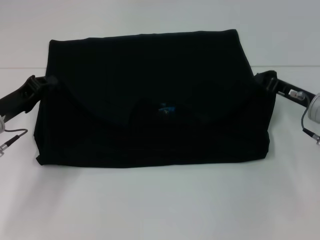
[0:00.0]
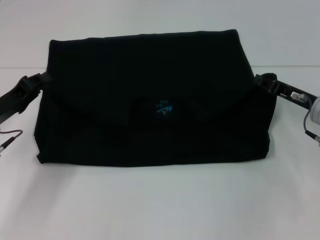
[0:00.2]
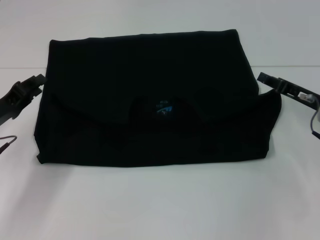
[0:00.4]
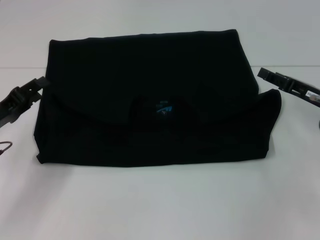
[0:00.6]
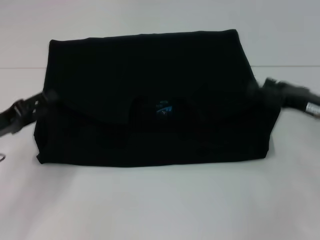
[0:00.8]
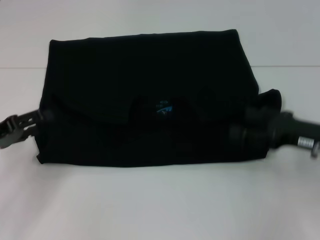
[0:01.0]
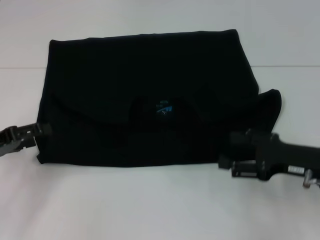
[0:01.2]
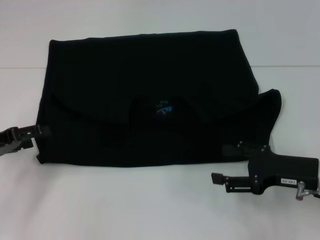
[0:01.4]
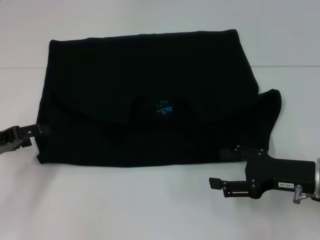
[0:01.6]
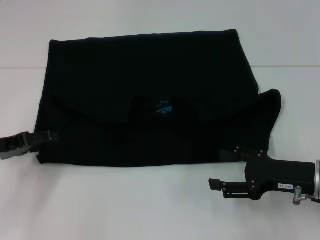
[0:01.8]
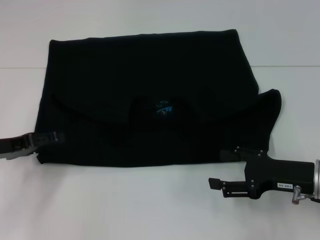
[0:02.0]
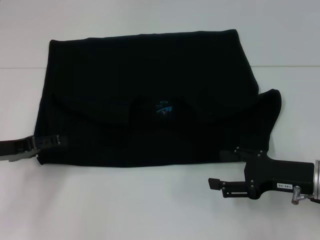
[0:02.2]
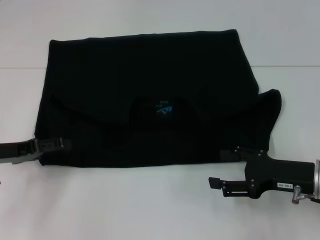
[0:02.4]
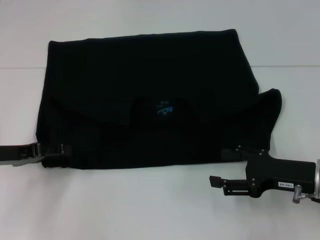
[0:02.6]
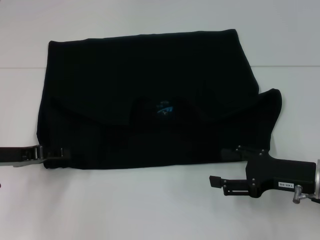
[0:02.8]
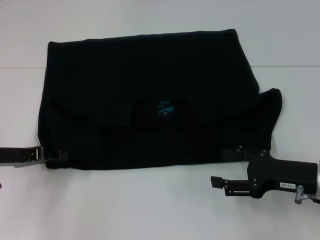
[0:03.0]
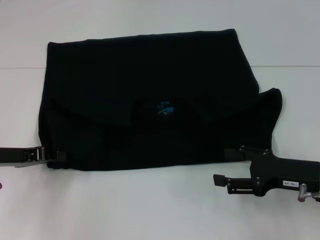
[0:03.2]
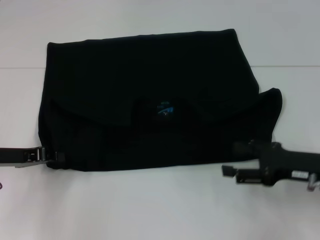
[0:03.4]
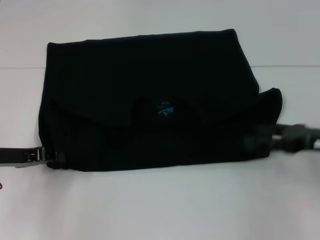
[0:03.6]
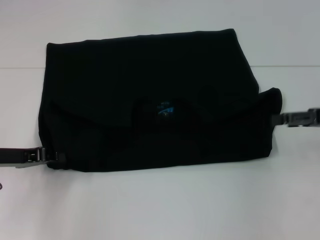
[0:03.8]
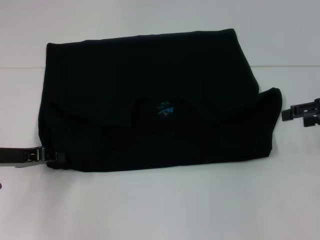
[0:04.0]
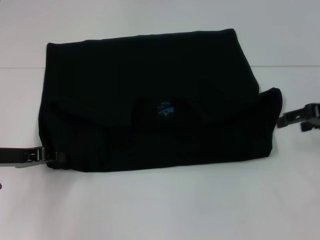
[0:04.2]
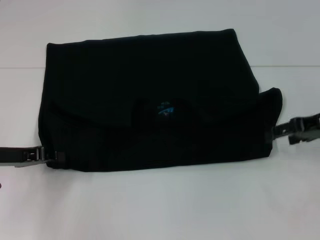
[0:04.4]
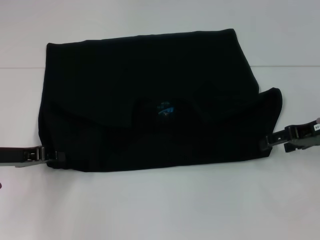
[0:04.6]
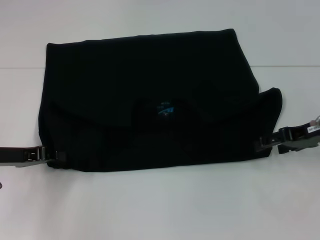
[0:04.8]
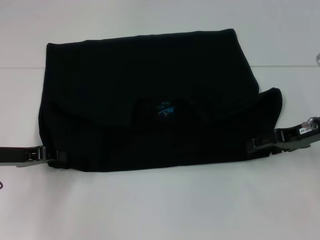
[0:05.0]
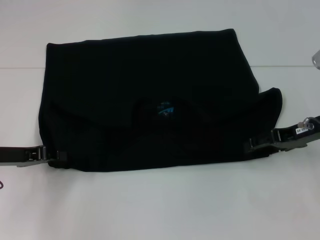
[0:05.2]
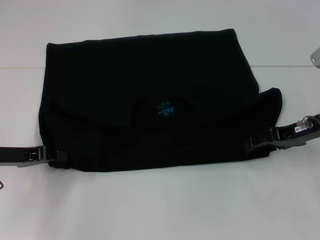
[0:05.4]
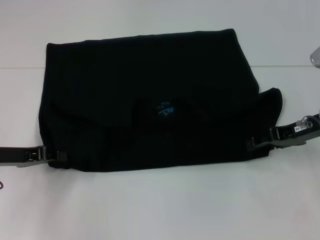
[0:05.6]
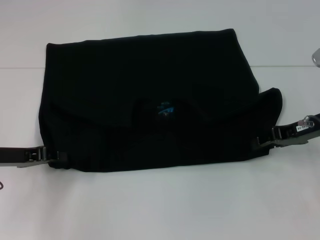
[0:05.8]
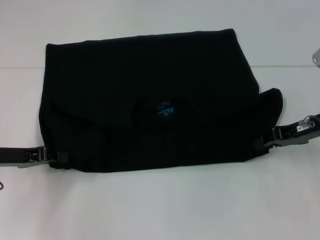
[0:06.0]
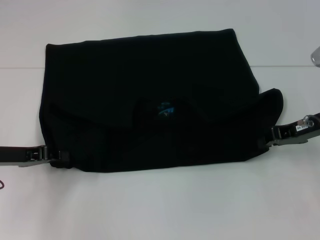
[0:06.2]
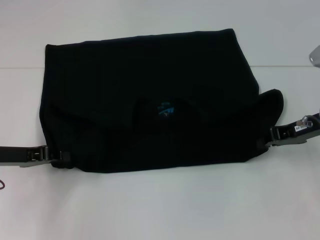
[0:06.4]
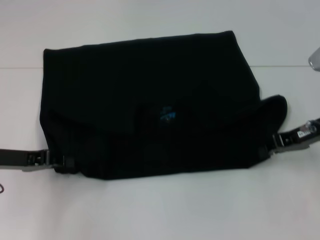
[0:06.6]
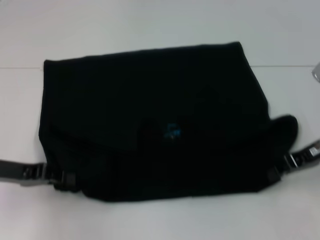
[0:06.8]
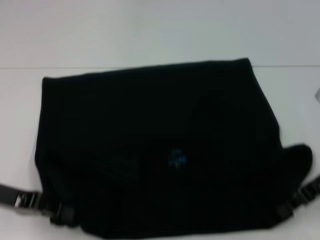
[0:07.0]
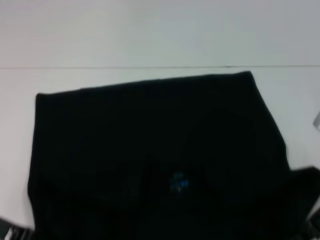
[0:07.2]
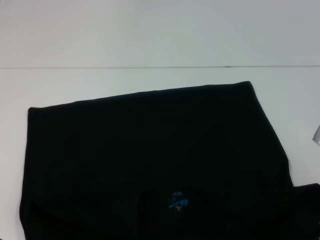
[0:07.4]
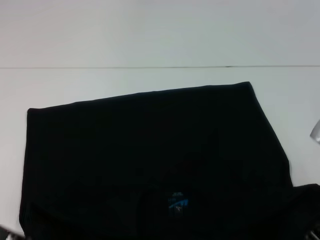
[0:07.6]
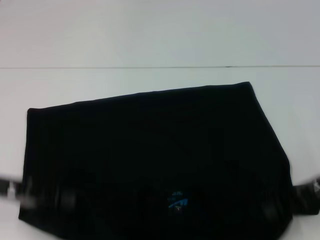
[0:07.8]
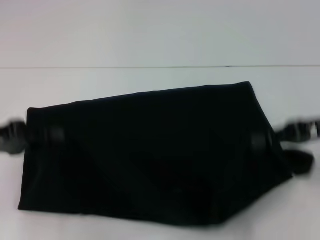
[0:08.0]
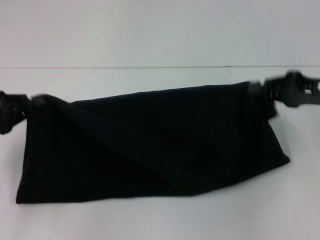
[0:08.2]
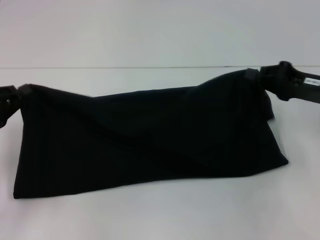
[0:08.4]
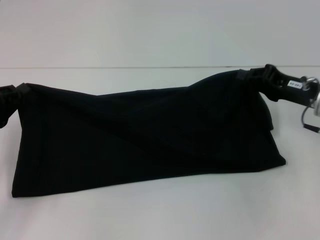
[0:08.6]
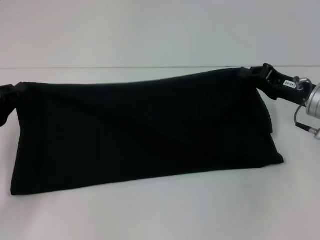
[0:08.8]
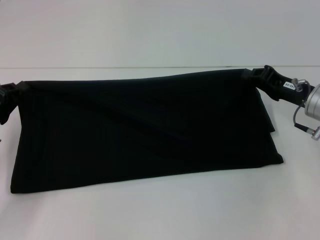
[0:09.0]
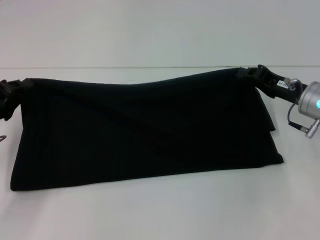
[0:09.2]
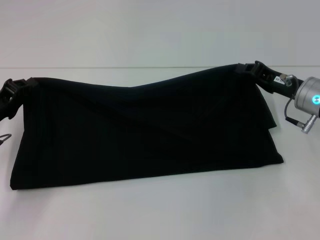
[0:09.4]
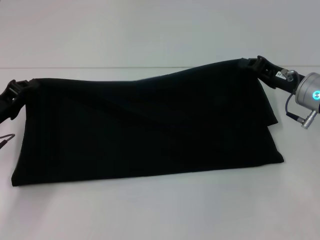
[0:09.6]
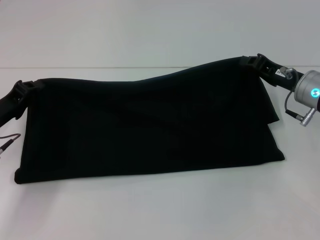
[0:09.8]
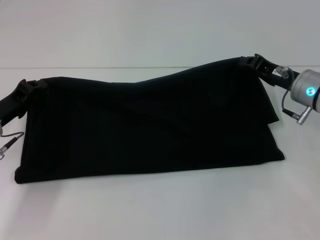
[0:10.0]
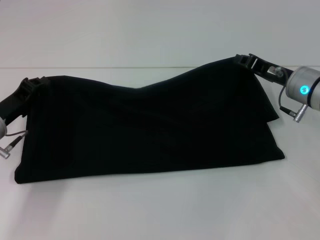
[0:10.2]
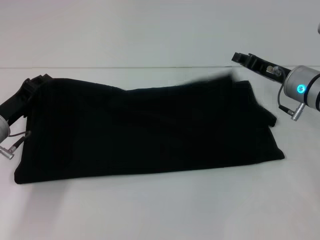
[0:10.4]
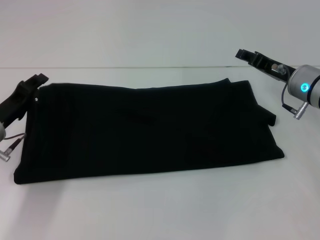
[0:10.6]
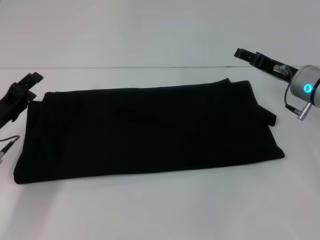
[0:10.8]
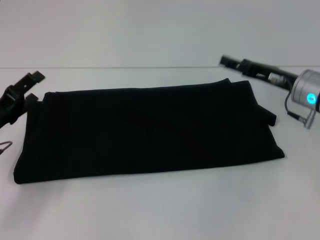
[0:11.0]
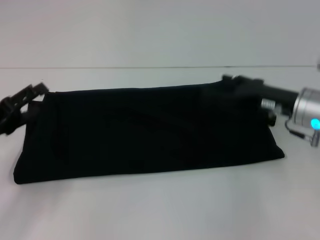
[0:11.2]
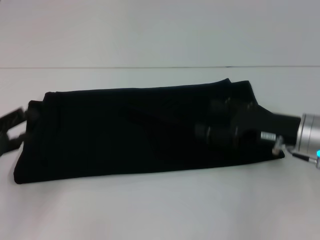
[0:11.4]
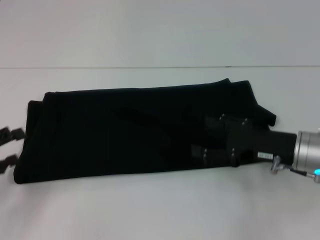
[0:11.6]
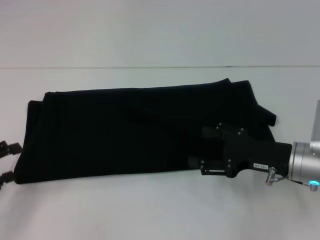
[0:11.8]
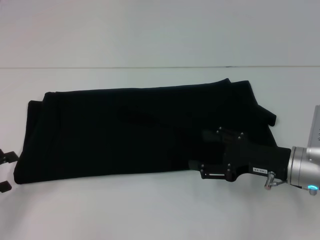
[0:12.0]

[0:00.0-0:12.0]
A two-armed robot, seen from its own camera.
Step, 1.2 to 7.4 s: Pull the clothes with your left hand.
Step, 1.2 to 7.4 s: Pull the clothes with your right hand.
Step, 7.6 to 11.0 s: Fold the clothes with your right hand.
0.0 to 1.6 s: The left gripper travels to the left by about 5 cm, and opens up, while the right gripper heads backward, covering about 10 cm, and opens.
1.6 to 3.0 s: The left gripper closes its fingers.
3.0 to 4.4 s: The right gripper moves forward and upward, some 15 cm; the left gripper closes its fingers.
4.4 to 6.0 s: The right gripper closes.
6.0 to 7.6 s: The grippers both shift backward by roughly 5 cm. The right gripper closes.
7.6 to 9.0 s: Both grippers travel together forward, approximately 5 cm.
9.0 to 10.4 s: The left gripper ends up about 5 cm from where it was.
10.4 to 12.0 s: The left gripper travels backward and to the left by about 15 cm, and opens, while the right gripper travels backward by about 10 cm, and opens.

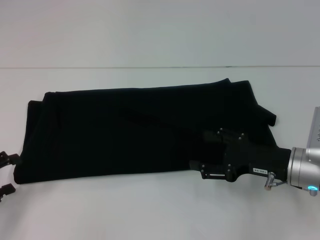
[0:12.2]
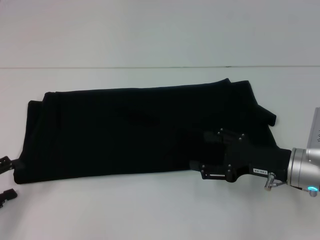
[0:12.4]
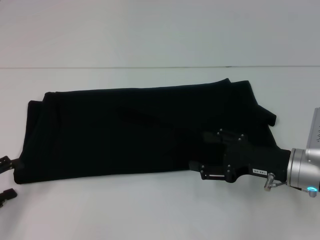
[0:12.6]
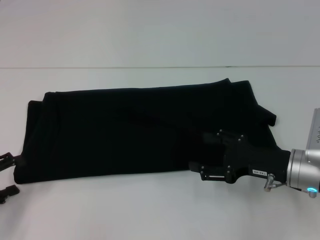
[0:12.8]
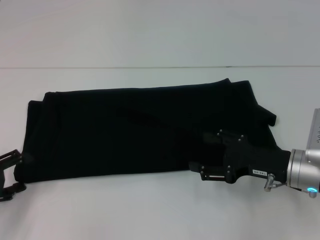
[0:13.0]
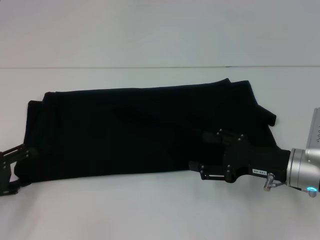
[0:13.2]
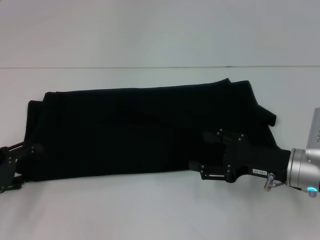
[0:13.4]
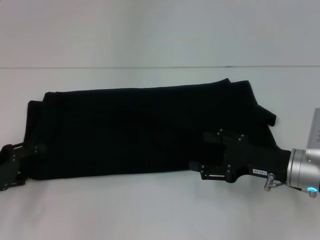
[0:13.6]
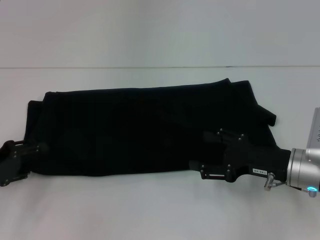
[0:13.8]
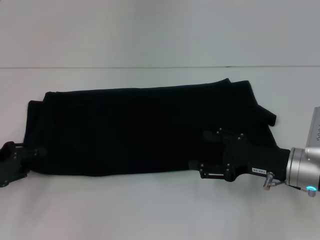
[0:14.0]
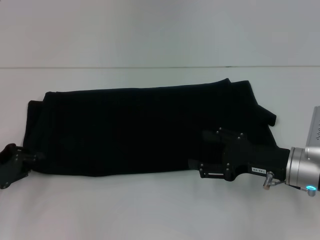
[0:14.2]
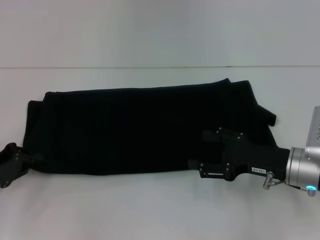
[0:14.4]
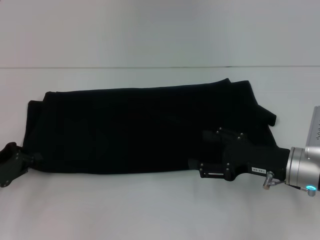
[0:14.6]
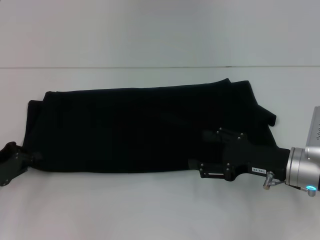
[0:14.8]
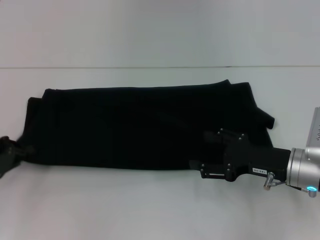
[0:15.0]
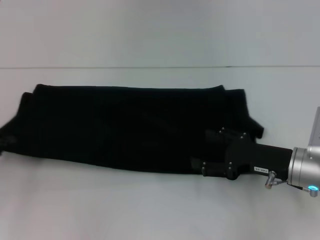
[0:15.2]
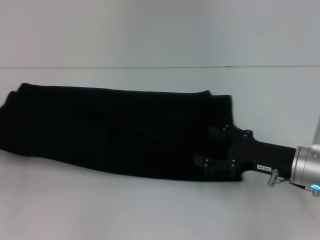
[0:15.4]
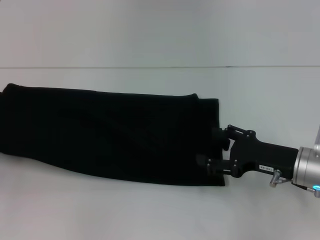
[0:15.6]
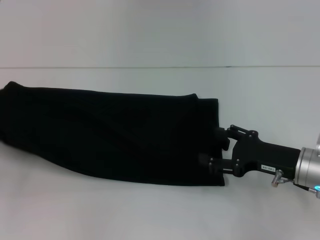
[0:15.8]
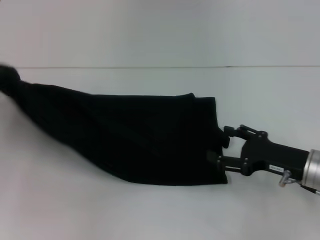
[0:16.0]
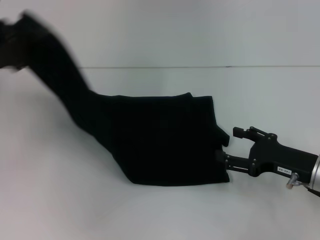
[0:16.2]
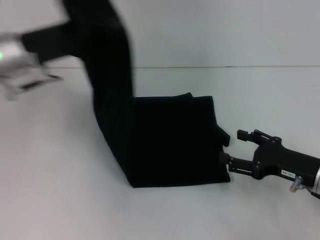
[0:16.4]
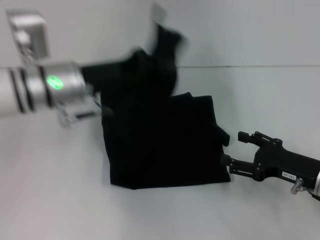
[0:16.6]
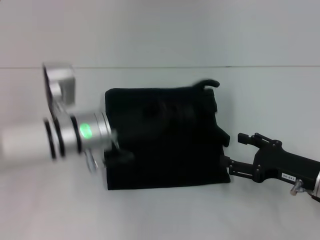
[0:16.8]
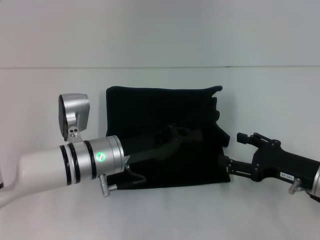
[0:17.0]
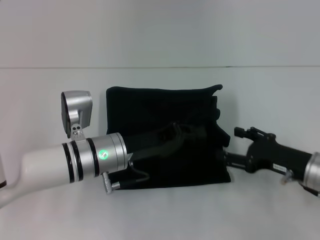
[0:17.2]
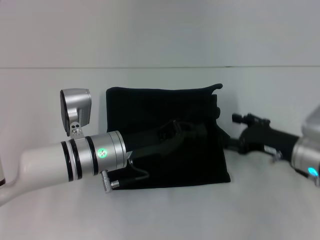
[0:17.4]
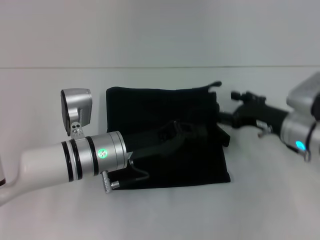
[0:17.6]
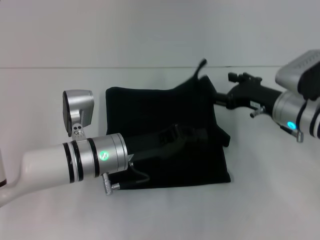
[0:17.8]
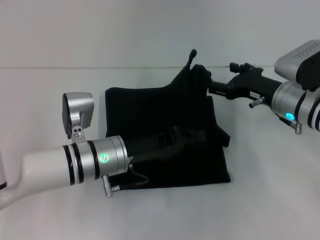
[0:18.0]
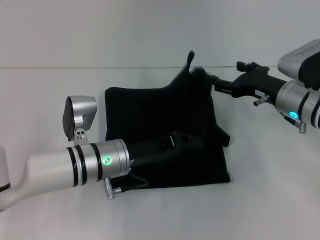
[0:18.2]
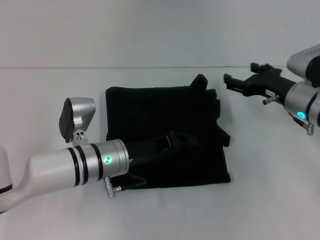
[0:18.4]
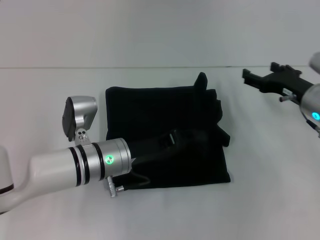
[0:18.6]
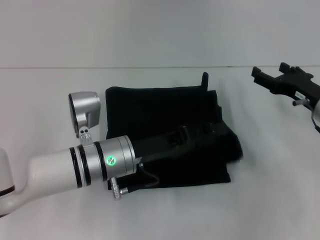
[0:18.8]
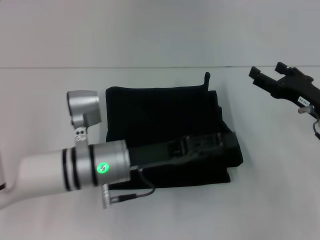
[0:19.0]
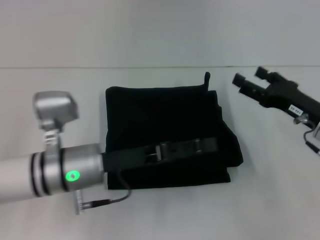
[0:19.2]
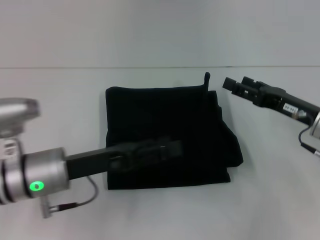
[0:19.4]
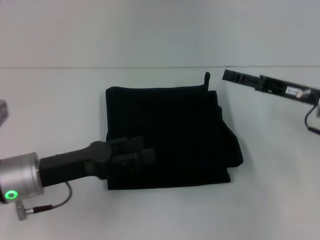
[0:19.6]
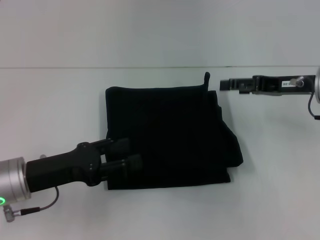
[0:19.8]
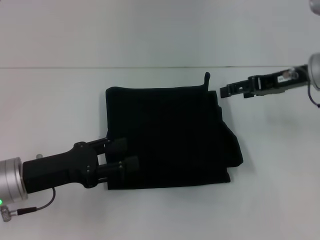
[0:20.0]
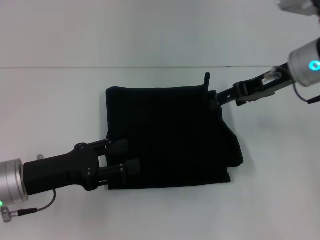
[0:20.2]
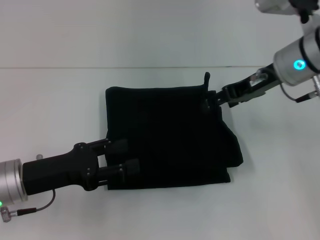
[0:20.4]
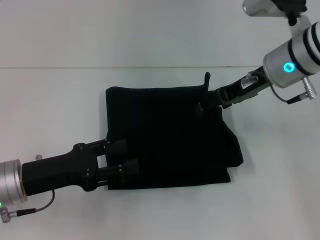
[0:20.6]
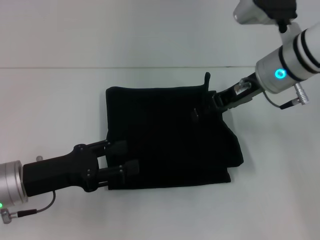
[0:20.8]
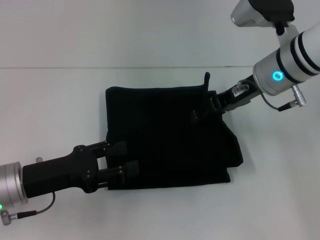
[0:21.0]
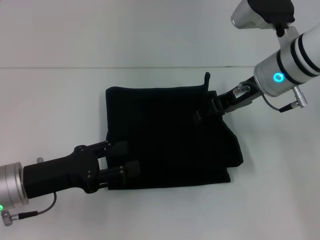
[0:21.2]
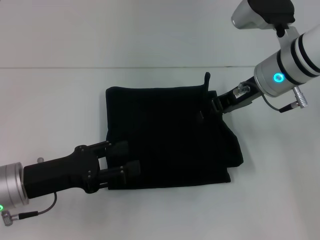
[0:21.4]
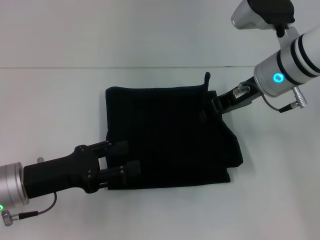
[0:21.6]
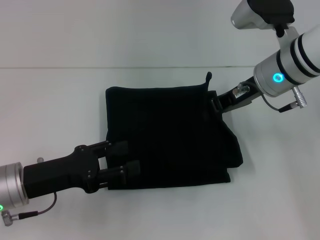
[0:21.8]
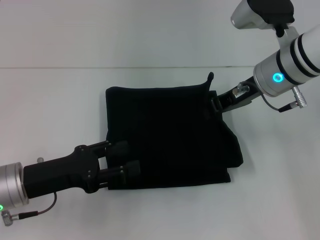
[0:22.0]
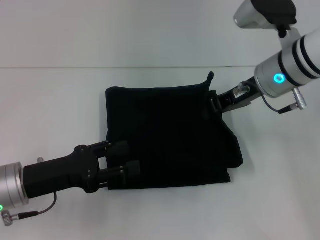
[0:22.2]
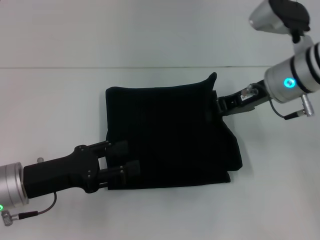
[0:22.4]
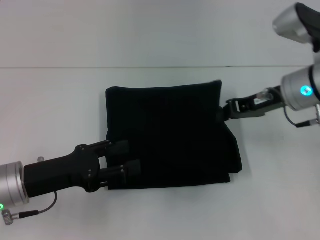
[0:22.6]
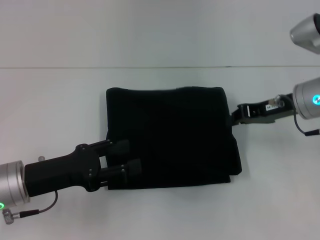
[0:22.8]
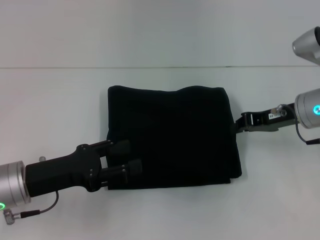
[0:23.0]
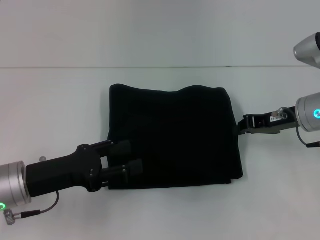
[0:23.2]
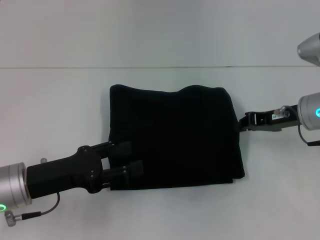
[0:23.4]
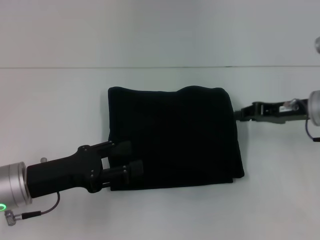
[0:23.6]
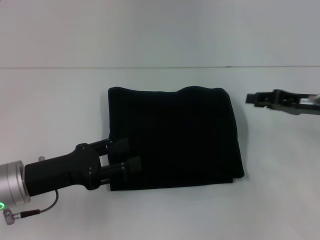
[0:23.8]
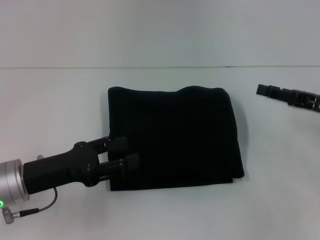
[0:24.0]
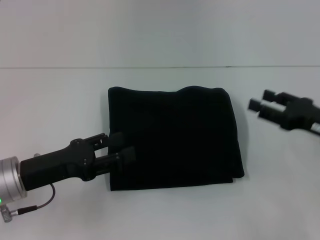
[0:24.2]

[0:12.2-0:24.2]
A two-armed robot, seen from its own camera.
Step, 12.2 to 19.4 s: Fold the clothes with your left hand.
12.2 to 13.8 s: The left gripper moves some 5 cm.
13.8 to 15.2 s: The left gripper closes up.
15.2 to 16.6 s: The left gripper shifts some 25 cm to the right and forward.
16.6 to 18.2 s: The left gripper moves downward, some 10 cm. The right gripper travels forward by some 10 cm.
18.2 to 19.8 s: The right gripper shifts roughly 5 cm upward. Meanwhile the left gripper is displaced to the left and backward by about 15 cm, and opens up.
19.8 to 21.2 s: The right gripper goes some 10 cm to the left.
21.2 to 22.6 s: The right gripper changes place by approximately 5 cm, and closes its fingers.
22.6 to 24.2 s: The right gripper travels to the right, backward and downward by some 15 cm, and opens its fingers.
